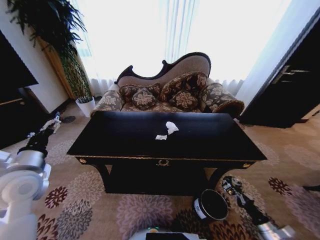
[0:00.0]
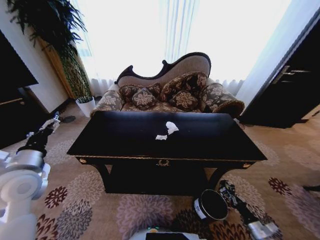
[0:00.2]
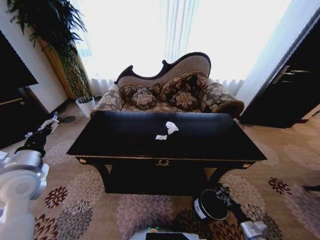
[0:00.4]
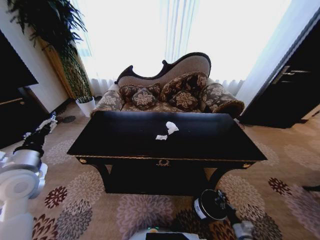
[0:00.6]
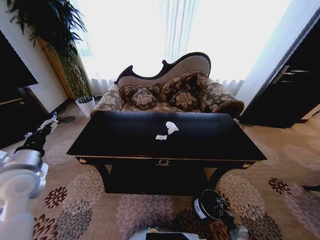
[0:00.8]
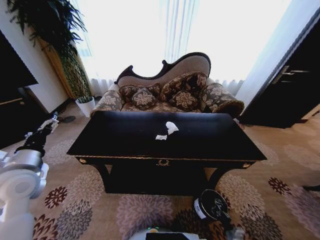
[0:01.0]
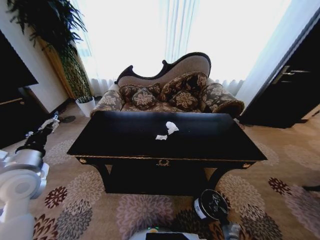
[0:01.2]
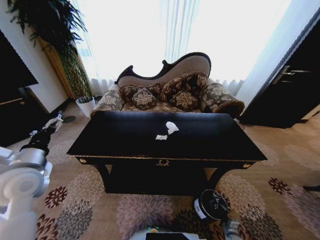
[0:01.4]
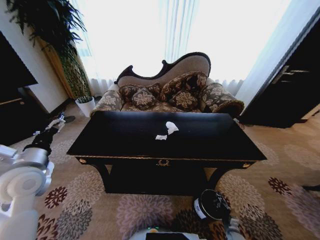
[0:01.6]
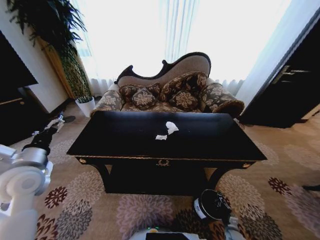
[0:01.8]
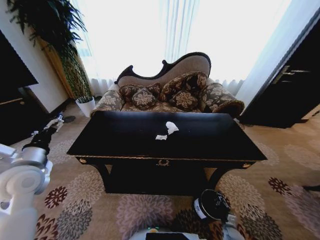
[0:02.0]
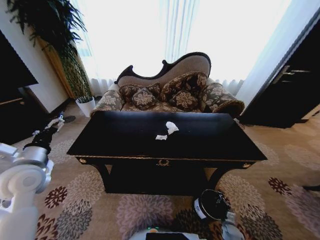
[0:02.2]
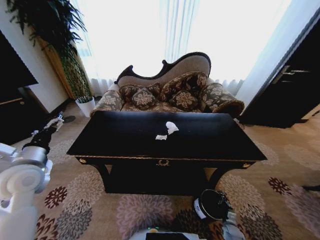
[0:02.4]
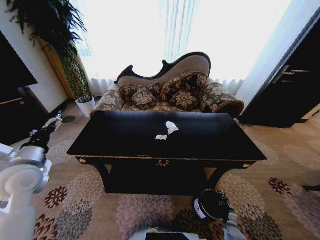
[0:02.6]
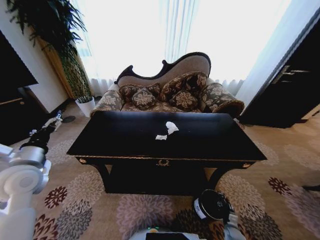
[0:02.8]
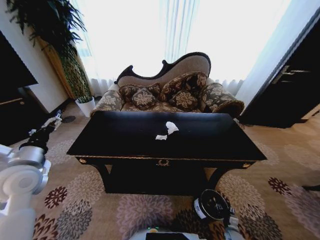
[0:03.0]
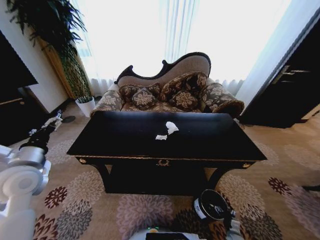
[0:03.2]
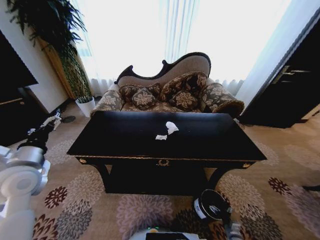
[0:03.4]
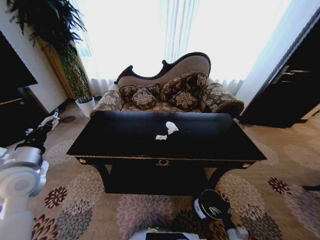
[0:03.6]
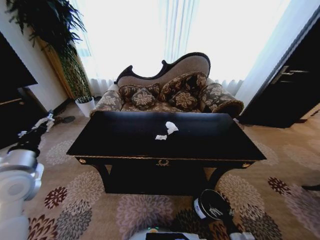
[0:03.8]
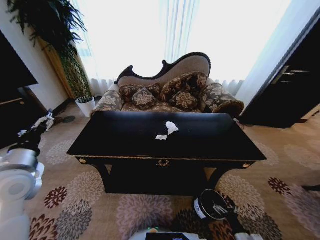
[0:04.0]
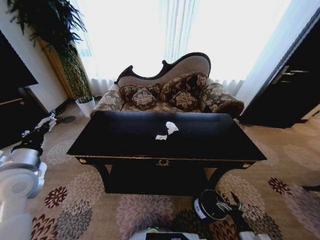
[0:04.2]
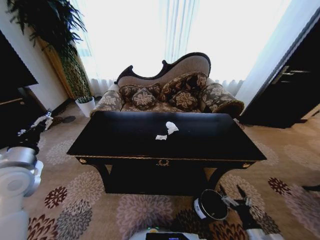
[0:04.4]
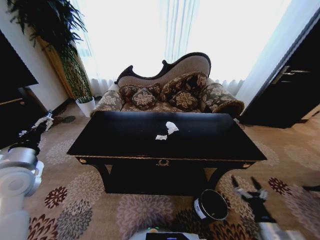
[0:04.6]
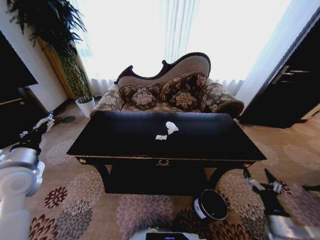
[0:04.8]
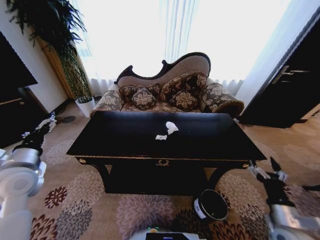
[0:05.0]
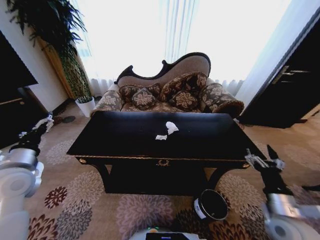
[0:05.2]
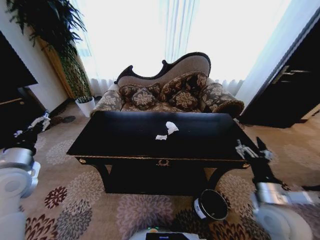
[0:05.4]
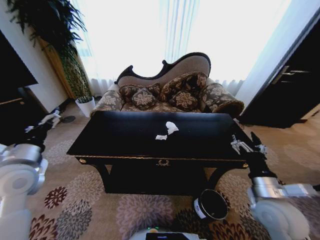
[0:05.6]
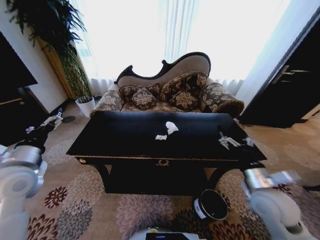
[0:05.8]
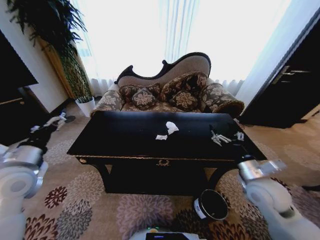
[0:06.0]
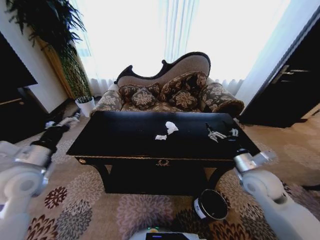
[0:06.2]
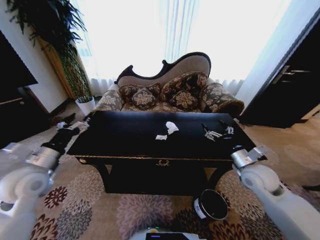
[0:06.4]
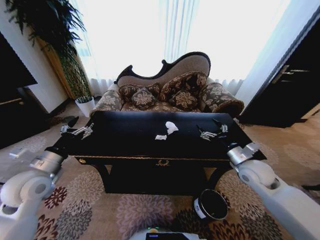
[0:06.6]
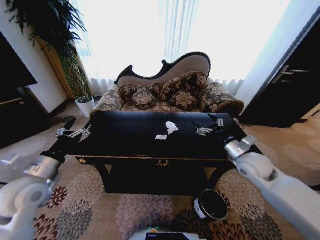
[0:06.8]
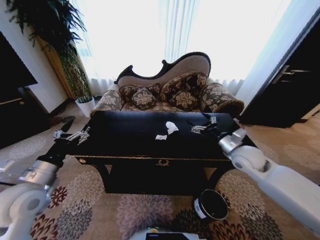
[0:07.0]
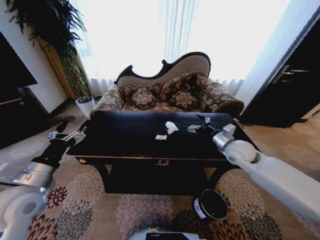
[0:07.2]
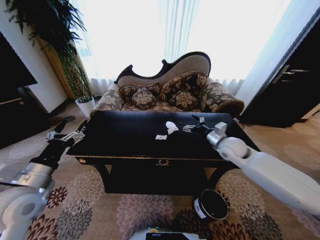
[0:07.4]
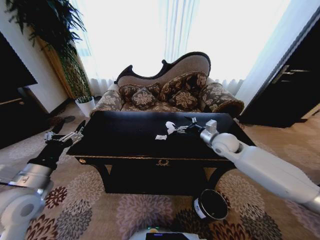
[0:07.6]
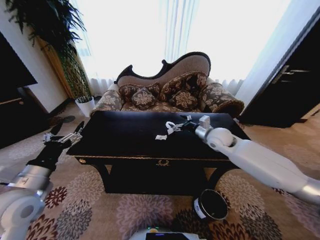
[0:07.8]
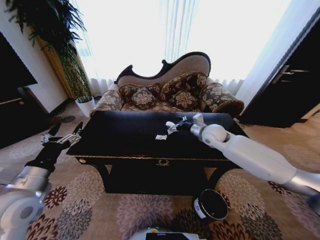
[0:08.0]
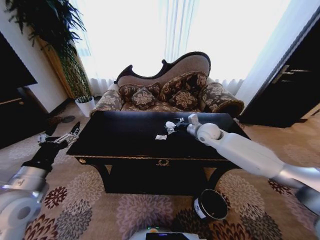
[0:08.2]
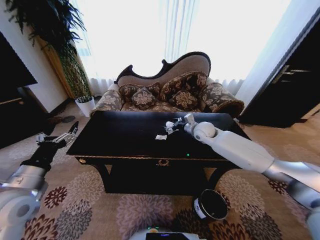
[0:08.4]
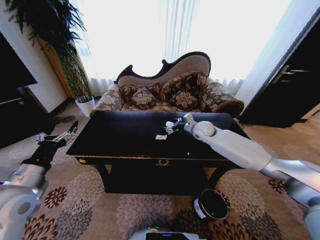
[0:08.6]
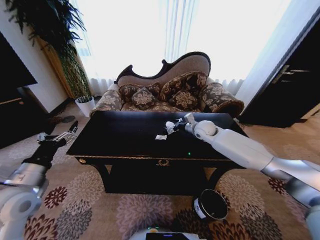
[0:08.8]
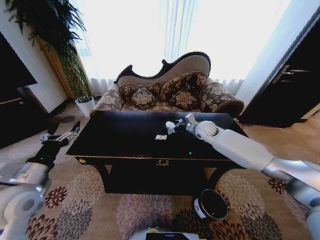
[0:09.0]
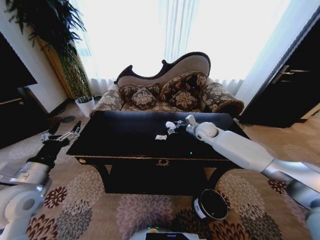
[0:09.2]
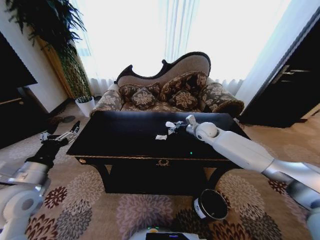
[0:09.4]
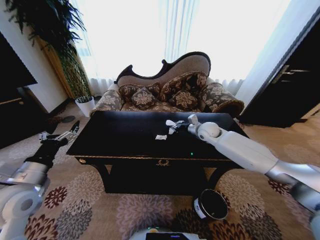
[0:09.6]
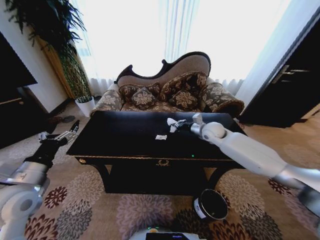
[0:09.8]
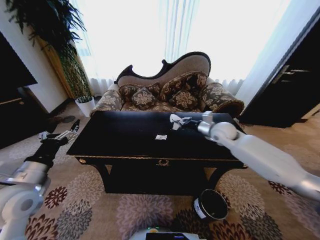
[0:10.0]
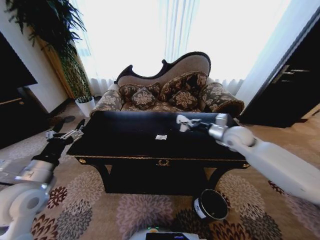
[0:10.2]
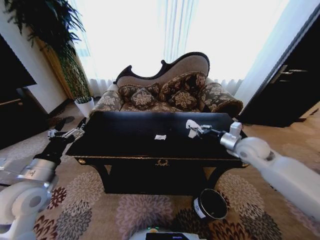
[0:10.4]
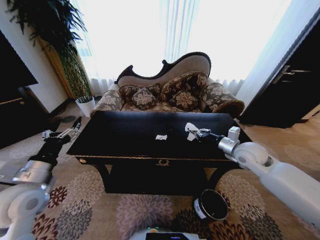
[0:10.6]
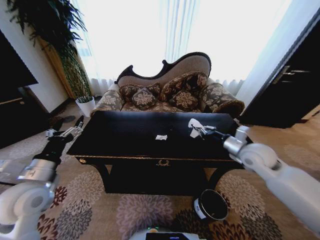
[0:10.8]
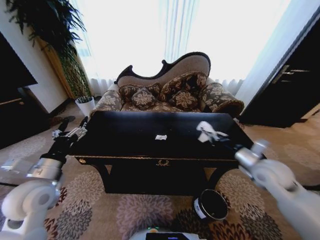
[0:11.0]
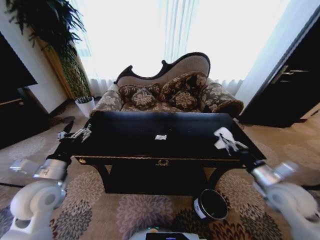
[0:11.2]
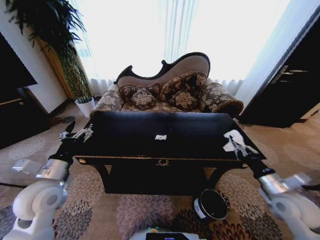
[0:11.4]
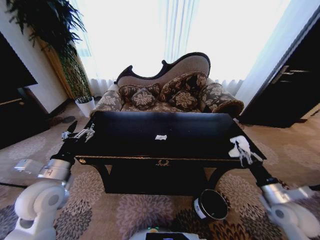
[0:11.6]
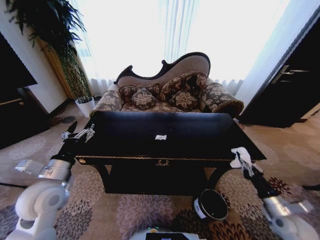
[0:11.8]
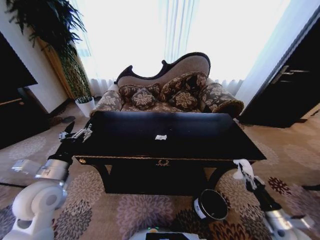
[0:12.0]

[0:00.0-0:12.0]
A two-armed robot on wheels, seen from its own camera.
Task of the whole recording: Move to the front of the table and place the trash on the table into the trash bin.
0:00.0 to 0:01.6: The right gripper is displaced downward and to the left by about 20 cm.
0:03.0 to 0:04.4: The right gripper travels upward by roughly 20 cm, and opens up.
0:04.4 to 0:06.0: The right gripper is displaced upward and forward by roughly 30 cm.
0:06.0 to 0:07.6: The left gripper shifts by some 5 cm. Meanwhile the right gripper heads forward, covering approximately 20 cm.
0:07.6 to 0:09.0: The right gripper goes about 10 cm forward.
0:09.0 to 0:10.4: The right gripper is displaced backward and to the right by approximately 20 cm, and closes up.
0:10.4 to 0:12.0: The right gripper goes roughly 35 cm backward, downward and to the right.

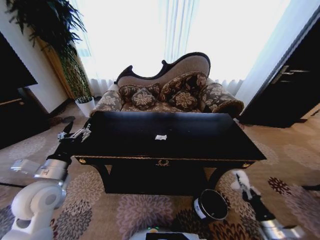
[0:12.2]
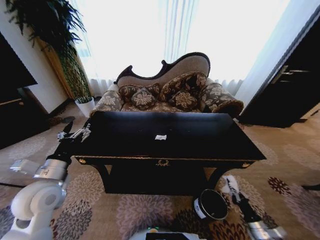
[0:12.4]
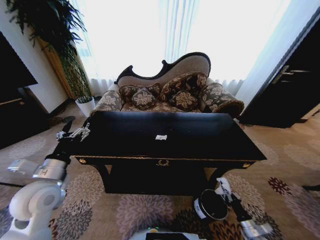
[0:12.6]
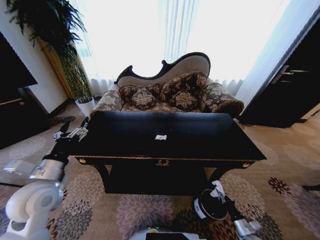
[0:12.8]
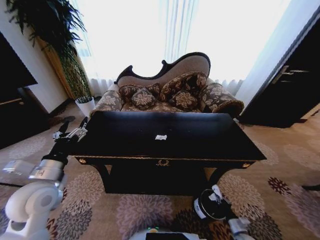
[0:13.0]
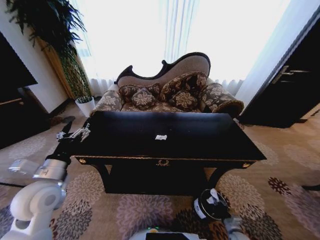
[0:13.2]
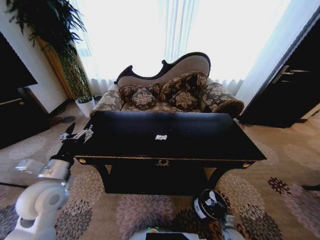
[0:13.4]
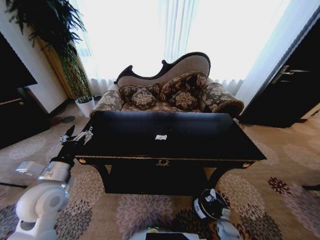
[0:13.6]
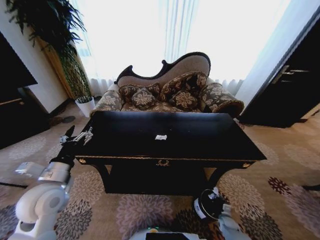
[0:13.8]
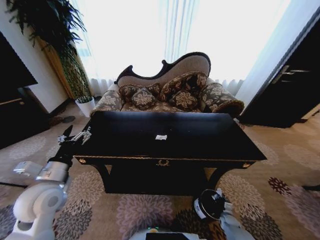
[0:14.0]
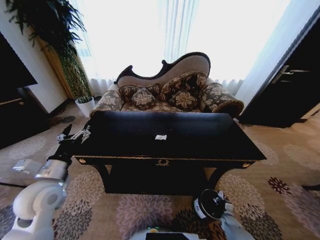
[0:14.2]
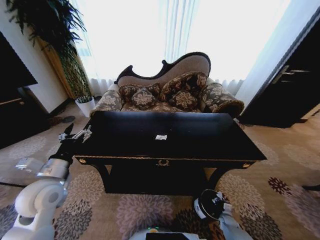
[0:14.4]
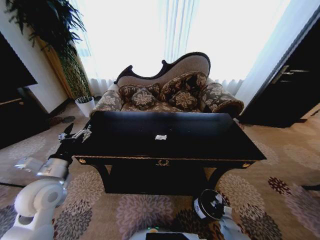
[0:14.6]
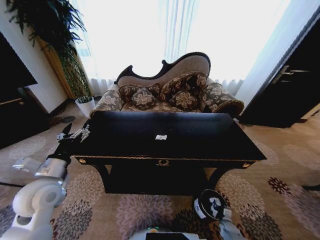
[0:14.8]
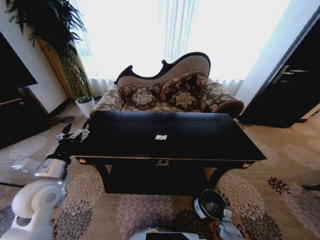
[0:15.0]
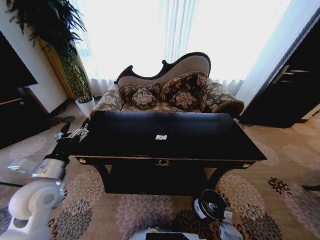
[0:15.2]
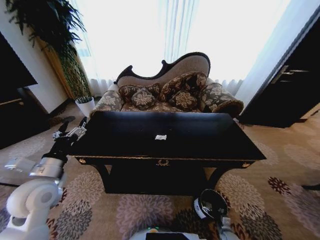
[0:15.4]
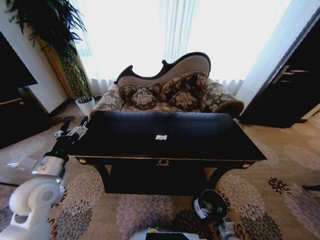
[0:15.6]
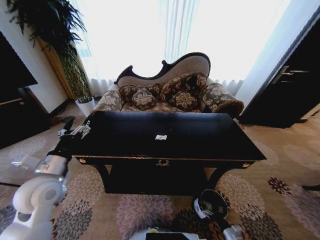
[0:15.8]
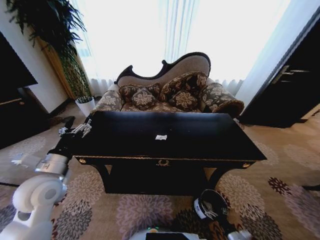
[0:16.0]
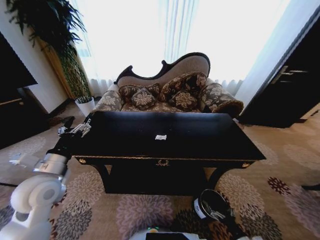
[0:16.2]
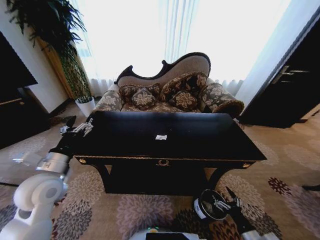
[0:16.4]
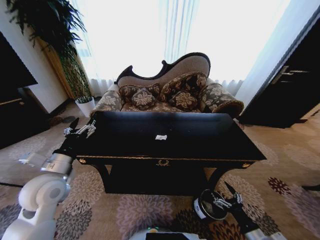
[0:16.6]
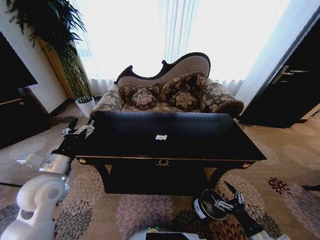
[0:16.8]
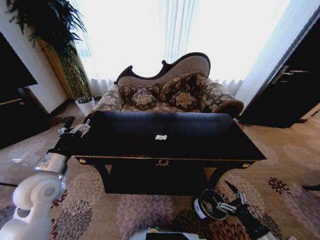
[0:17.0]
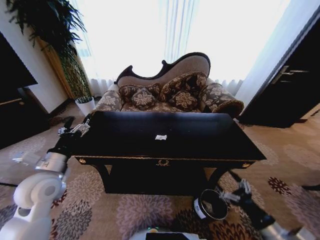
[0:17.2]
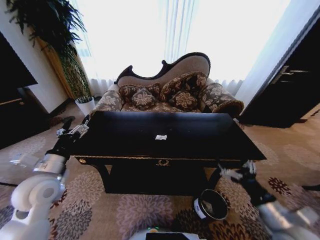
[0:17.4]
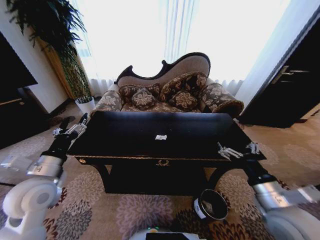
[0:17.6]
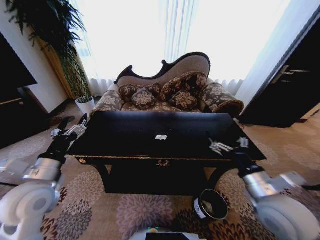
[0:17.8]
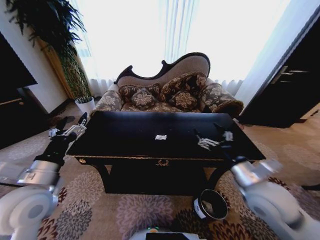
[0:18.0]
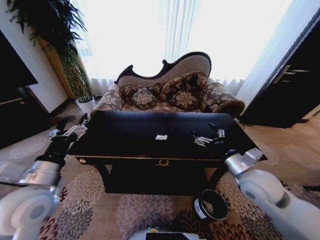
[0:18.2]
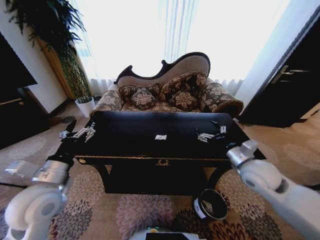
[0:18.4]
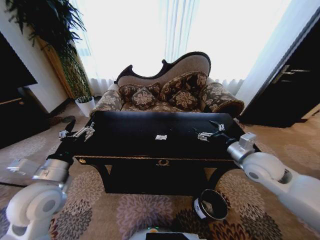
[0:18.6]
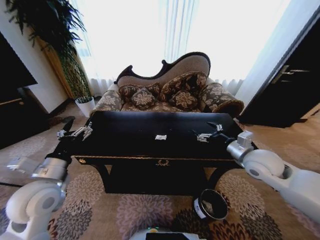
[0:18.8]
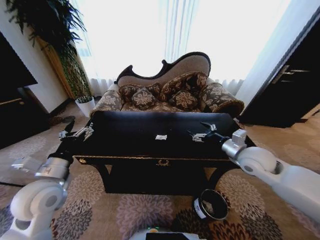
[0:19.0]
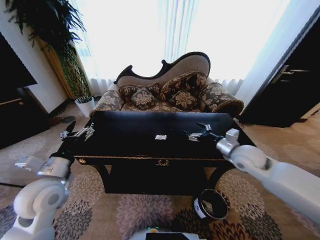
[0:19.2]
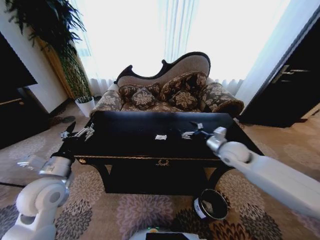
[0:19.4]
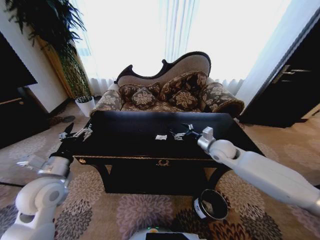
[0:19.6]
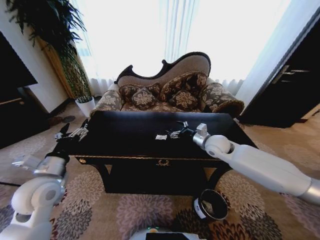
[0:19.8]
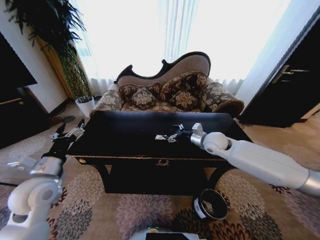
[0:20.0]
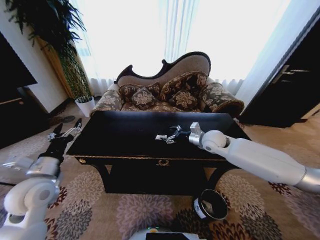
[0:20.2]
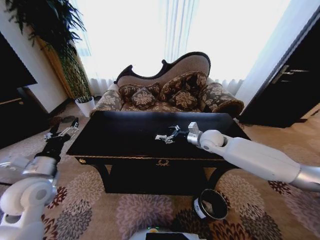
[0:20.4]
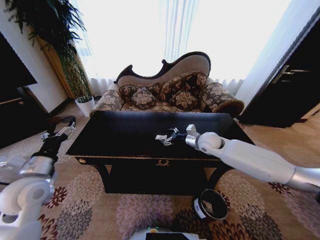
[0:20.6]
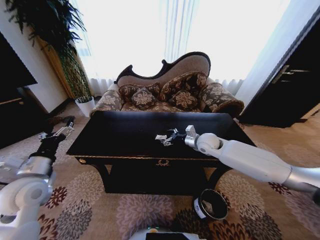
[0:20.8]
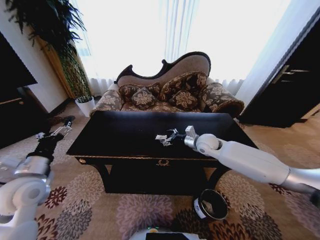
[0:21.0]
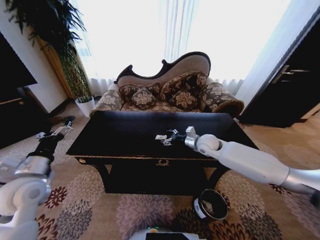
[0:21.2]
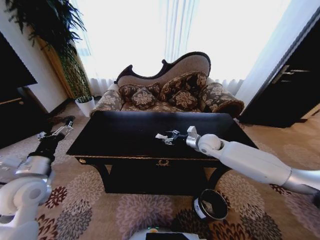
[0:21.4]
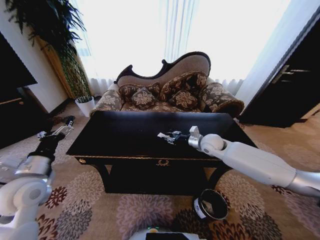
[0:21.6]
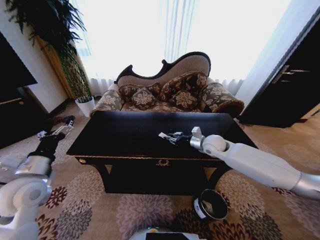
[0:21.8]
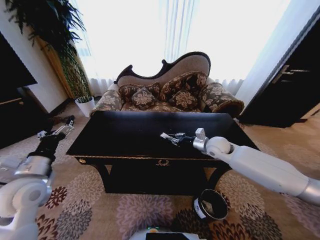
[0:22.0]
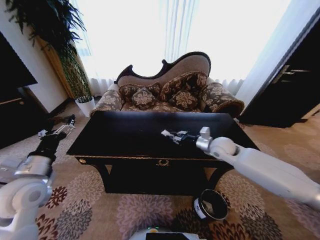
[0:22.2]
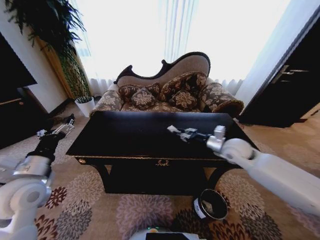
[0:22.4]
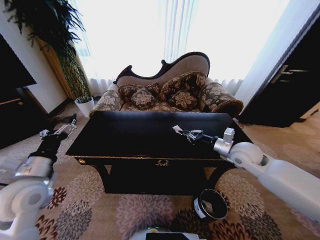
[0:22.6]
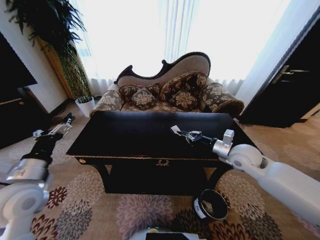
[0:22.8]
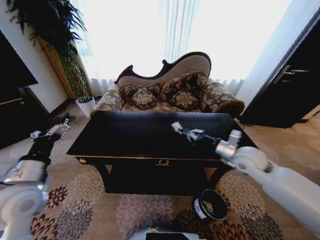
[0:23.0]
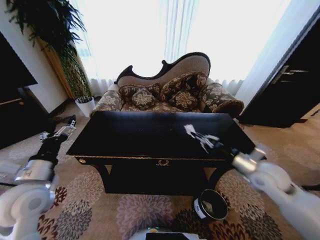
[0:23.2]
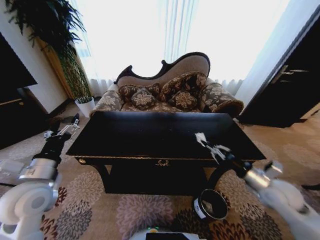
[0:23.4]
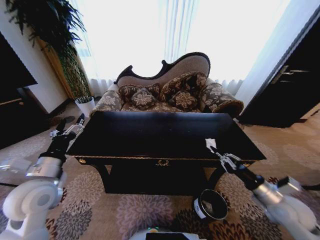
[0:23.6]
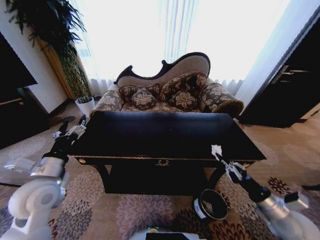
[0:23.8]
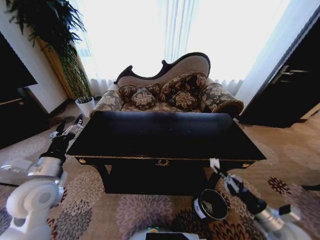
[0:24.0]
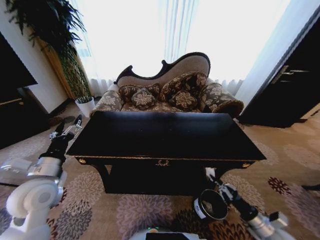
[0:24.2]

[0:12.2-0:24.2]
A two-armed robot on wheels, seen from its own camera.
Task of the whole recording: Move to the front of the table and place the trash on the table into the trash bin.
0:12.2 to 0:13.8: The right gripper goes roughly 25 cm downward, to the left and forward.
0:13.8 to 0:15.2: The right gripper opens.
0:15.2 to 0:16.6: The right gripper heads upward, covering roughly 25 cm.
0:16.6 to 0:18.2: The left gripper changes place by about 5 cm. Meanwhile the right gripper heads upward and forward, covering roughly 30 cm.
0:18.2 to 0:19.8: The right gripper shifts approximately 20 cm forward. The left gripper changes place by some 5 cm.
0:19.8 to 0:21.2: The grippers move only a little.
0:21.2 to 0:22.6: The right gripper heads backward and to the right, covering roughly 15 cm, and closes.
0:22.6 to 0:24.2: The right gripper travels backward, downward and to the right by some 35 cm.
